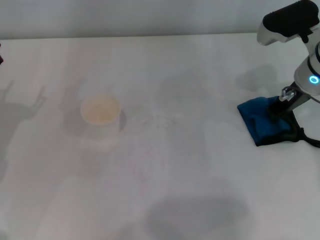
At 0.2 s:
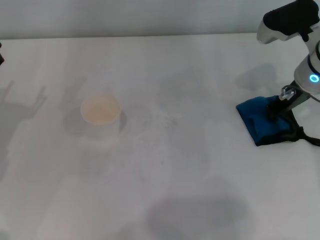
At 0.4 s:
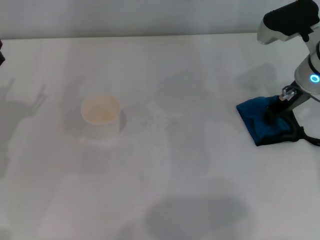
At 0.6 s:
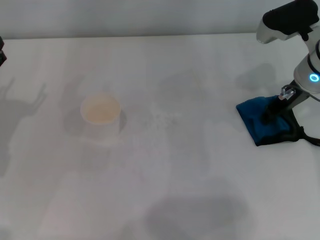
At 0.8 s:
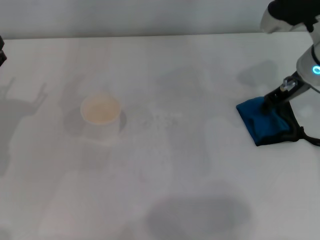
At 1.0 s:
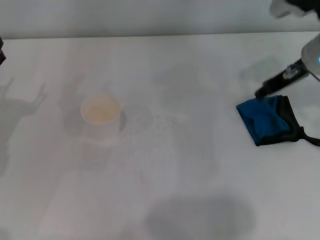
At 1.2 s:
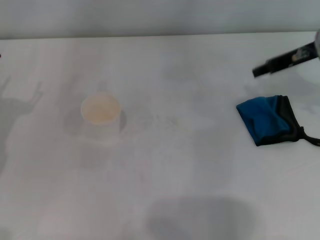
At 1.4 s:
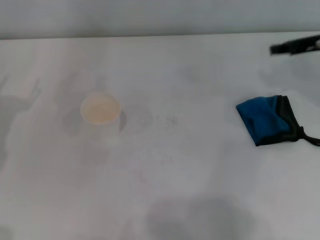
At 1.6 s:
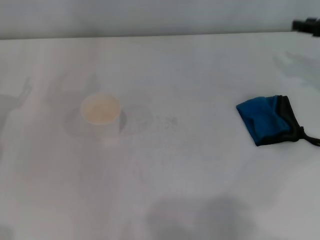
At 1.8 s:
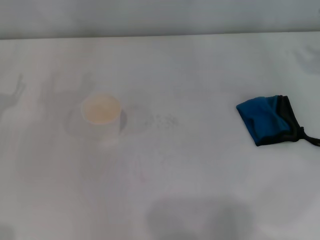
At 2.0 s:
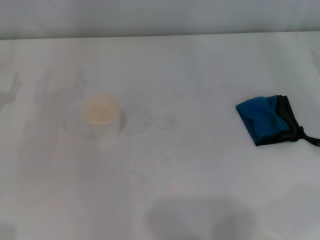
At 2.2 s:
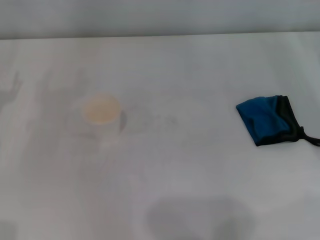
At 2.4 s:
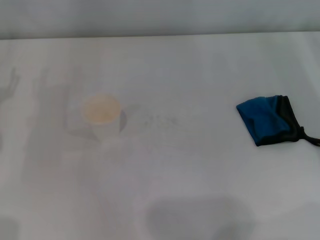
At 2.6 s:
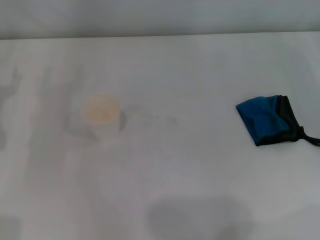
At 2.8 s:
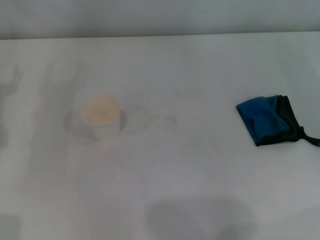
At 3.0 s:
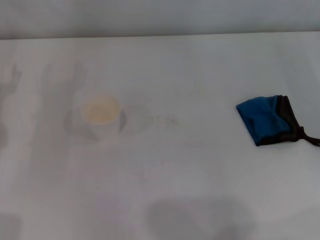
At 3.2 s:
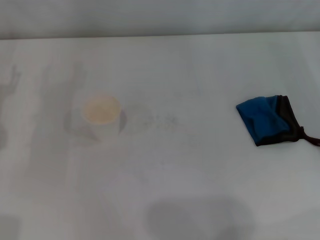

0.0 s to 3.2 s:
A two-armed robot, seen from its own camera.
Step, 0.0 to 0.4 s: Place the rag on the table with the right gripper.
0.0 to 1.6 s: The right gripper is displaced to the right by about 10 cm, and opens its fingers.
1.6 to 3.2 s: The right gripper heads backward, downward and to the right, covering approximately 15 cm.
